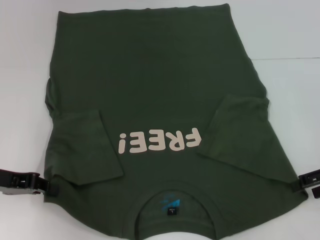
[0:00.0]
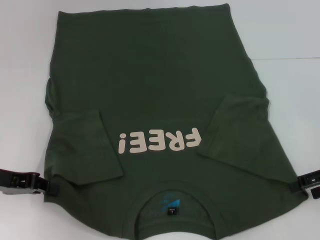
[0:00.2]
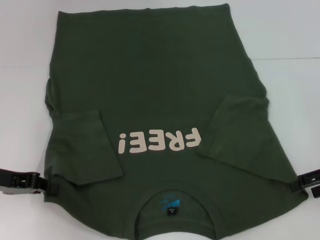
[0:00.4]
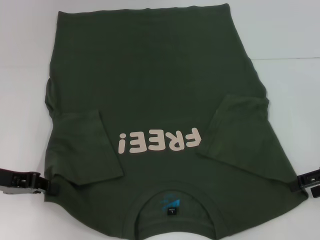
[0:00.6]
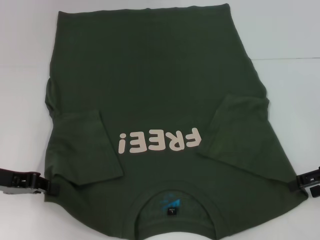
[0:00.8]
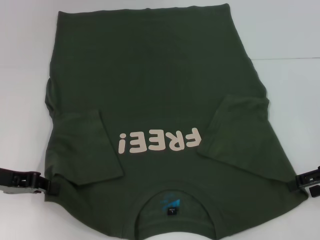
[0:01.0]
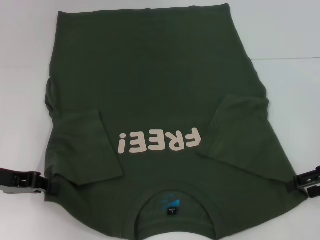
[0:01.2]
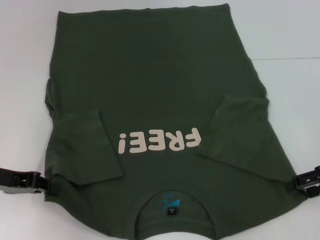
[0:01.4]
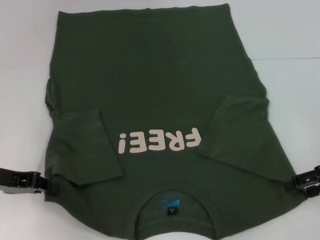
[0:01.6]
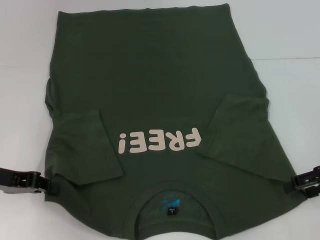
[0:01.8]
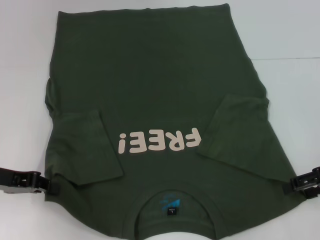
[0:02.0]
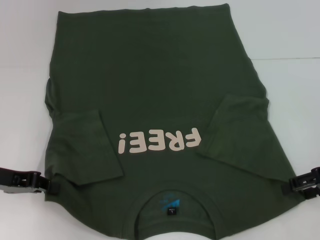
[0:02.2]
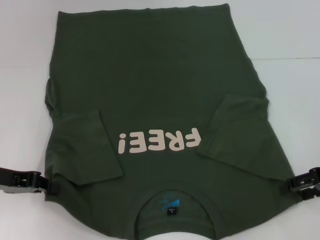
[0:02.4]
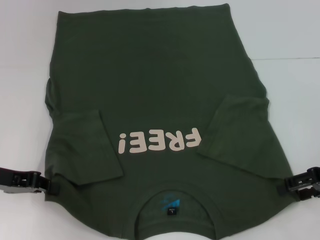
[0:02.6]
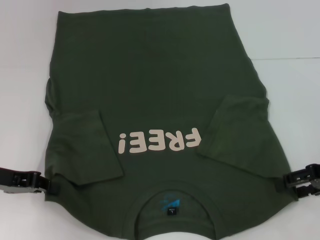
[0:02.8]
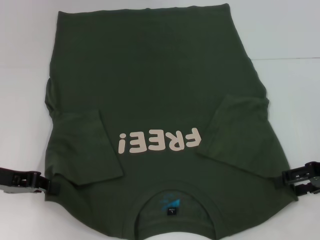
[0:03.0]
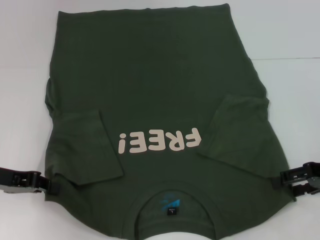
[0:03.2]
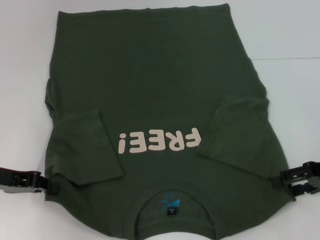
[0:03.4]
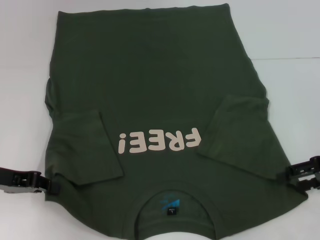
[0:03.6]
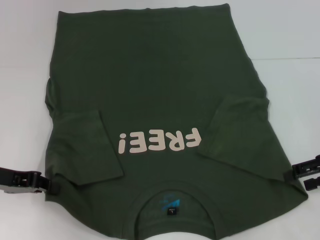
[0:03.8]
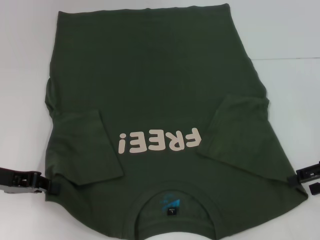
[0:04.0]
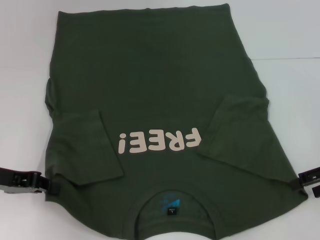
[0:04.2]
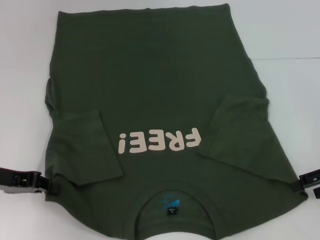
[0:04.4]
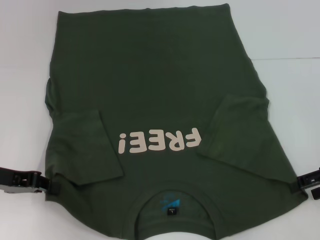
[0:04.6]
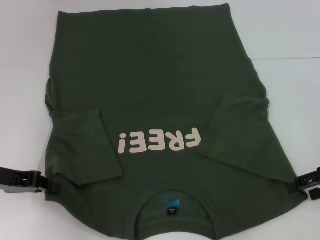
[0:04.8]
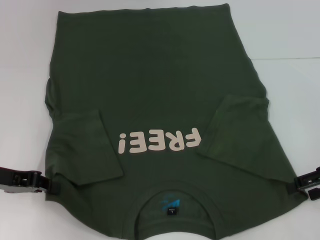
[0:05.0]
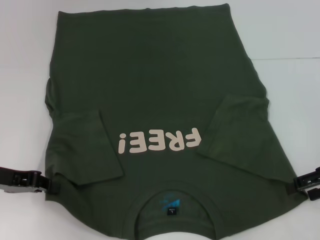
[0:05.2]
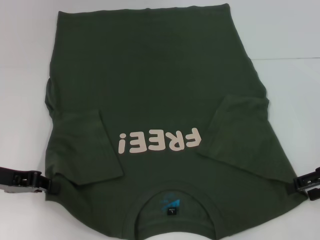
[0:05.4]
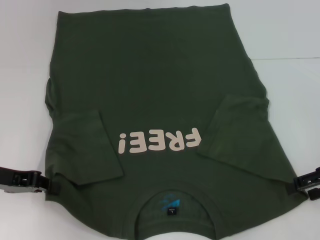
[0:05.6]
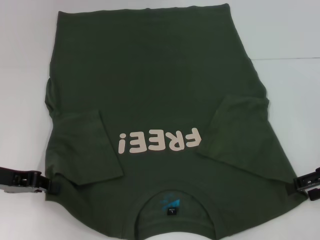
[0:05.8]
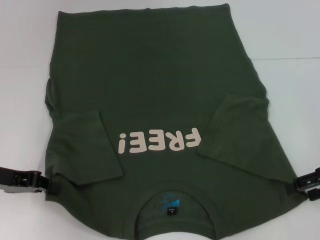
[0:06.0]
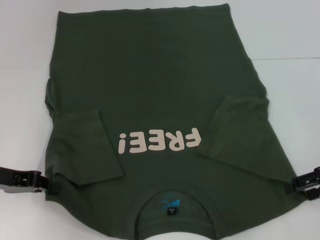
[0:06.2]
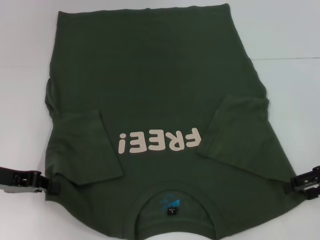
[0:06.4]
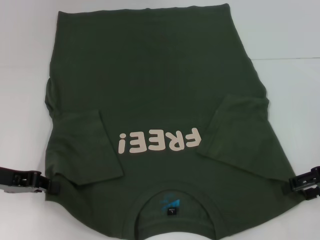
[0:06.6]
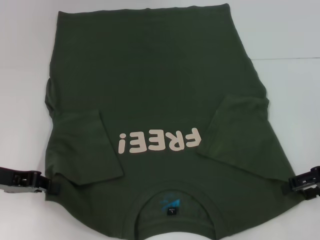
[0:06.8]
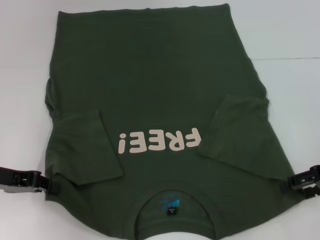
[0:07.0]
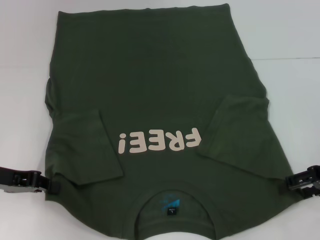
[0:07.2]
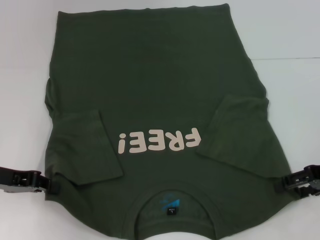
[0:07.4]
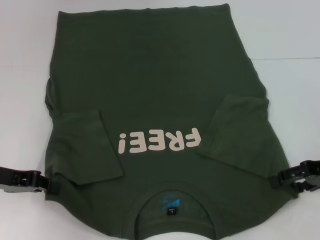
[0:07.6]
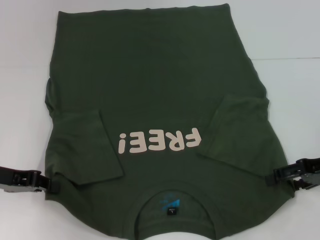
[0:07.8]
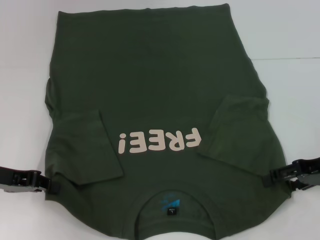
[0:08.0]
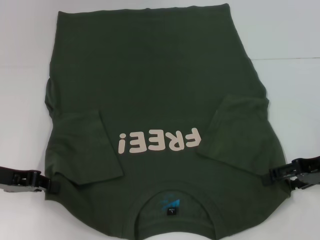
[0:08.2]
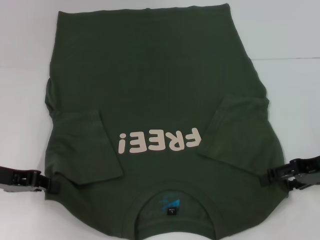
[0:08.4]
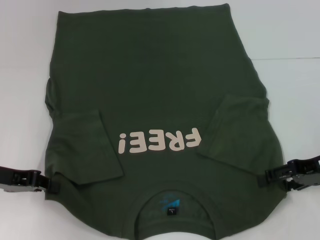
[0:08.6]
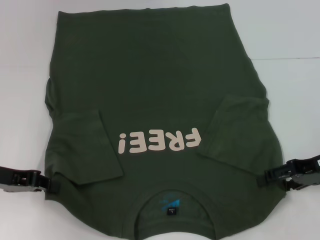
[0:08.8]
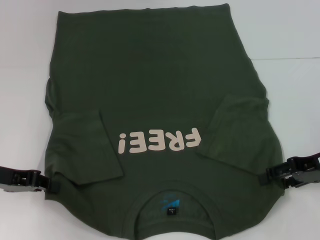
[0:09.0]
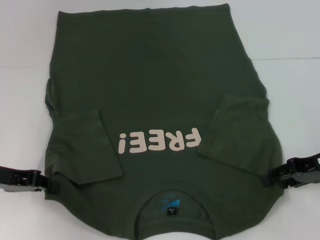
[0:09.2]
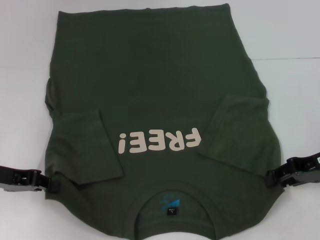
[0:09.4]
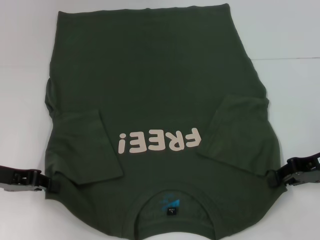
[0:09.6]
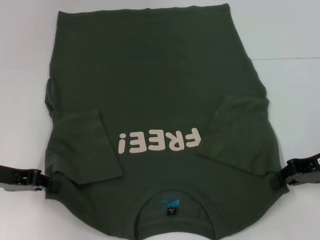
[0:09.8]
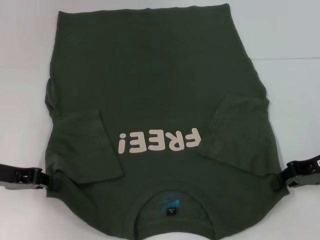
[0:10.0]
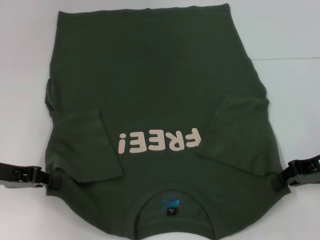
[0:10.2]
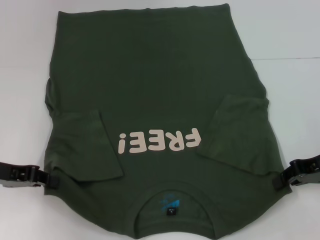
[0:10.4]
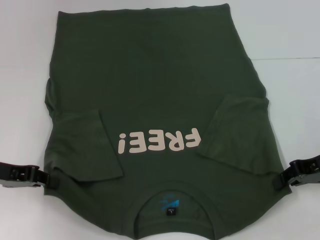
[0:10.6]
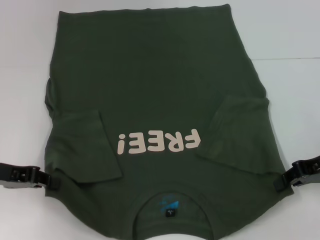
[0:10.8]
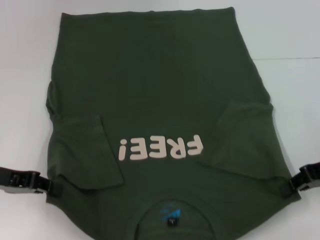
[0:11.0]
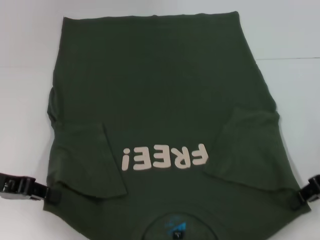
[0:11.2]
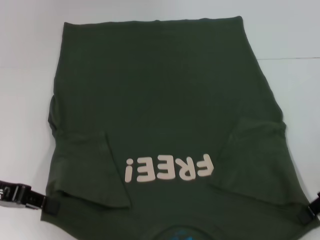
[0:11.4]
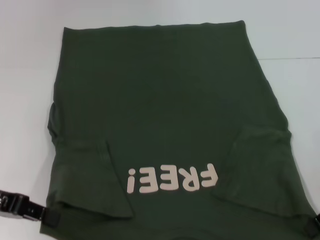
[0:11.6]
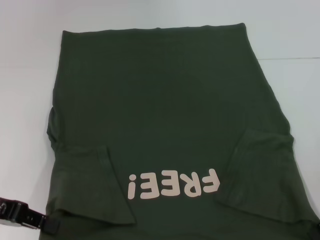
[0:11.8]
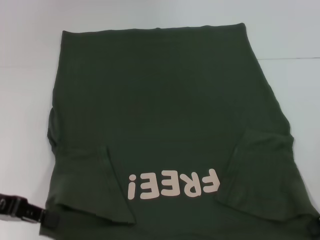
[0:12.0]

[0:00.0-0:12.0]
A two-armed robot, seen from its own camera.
Step, 0:00.0 to 0:09.6: Grab the bottom right corner with your right hand.
0:00.0 to 0:01.6: Neither gripper changes place.
0:01.6 to 0:04.4: The grippers make only small movements.
0:04.4 to 0:06.0: Neither gripper changes place.
0:06.0 to 0:09.0: The grippers move only a little.
0:09.0 to 0:10.4: The right gripper closes.
0:10.4 to 0:12.0: The right gripper ends up roughly 5 cm from where it was.

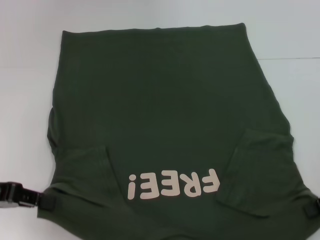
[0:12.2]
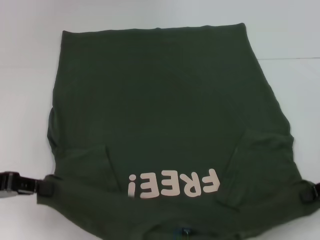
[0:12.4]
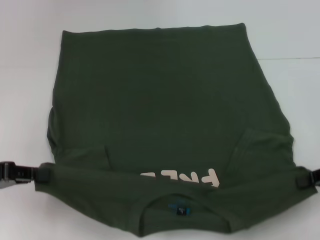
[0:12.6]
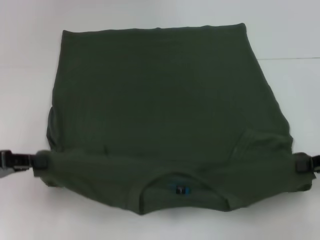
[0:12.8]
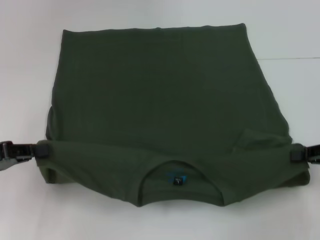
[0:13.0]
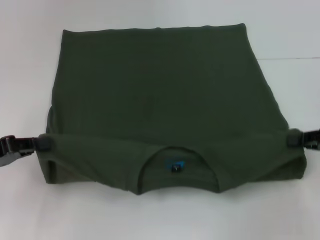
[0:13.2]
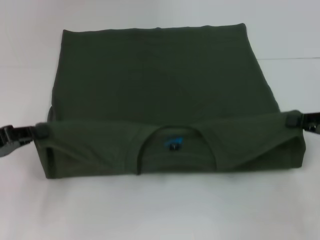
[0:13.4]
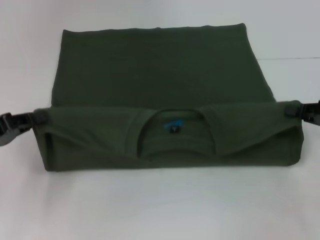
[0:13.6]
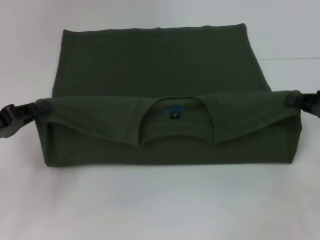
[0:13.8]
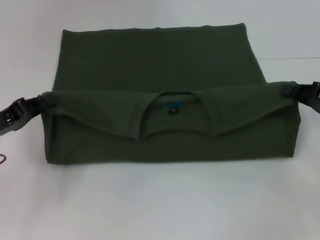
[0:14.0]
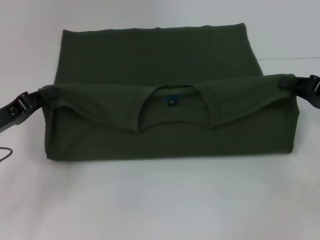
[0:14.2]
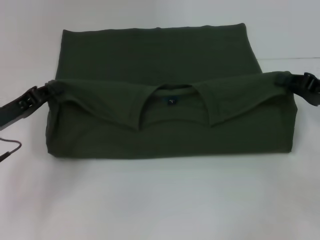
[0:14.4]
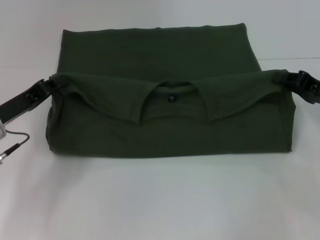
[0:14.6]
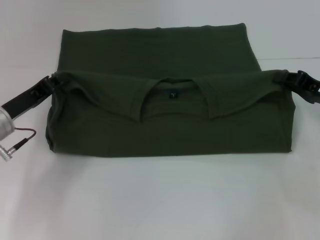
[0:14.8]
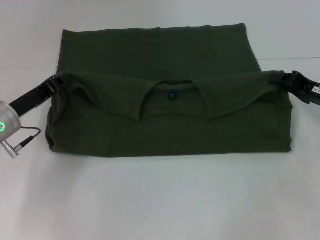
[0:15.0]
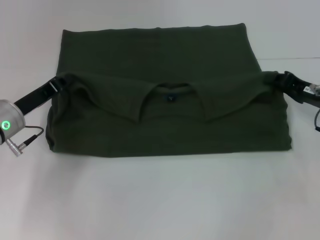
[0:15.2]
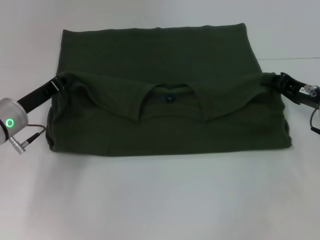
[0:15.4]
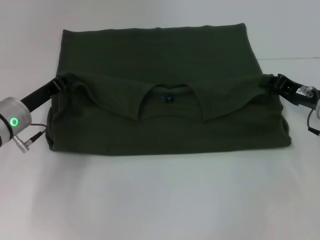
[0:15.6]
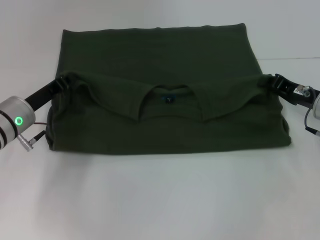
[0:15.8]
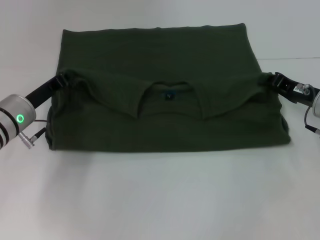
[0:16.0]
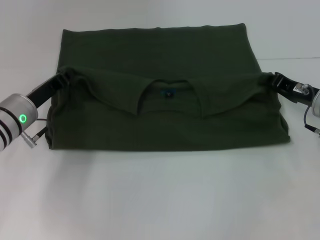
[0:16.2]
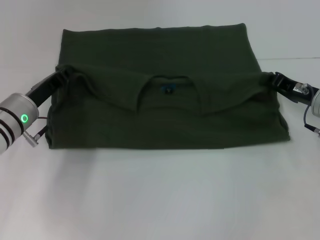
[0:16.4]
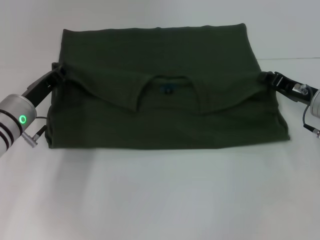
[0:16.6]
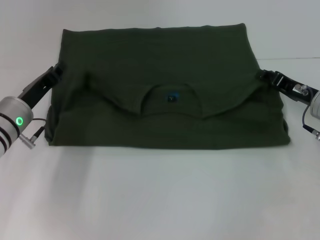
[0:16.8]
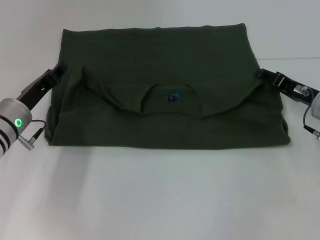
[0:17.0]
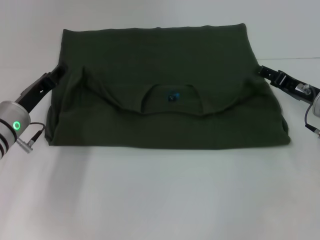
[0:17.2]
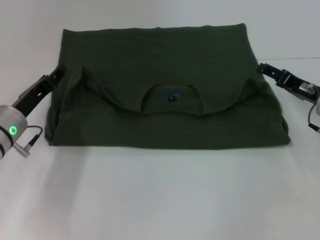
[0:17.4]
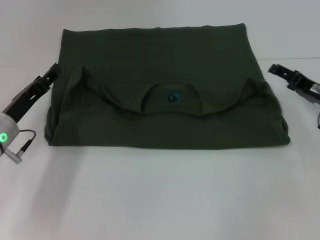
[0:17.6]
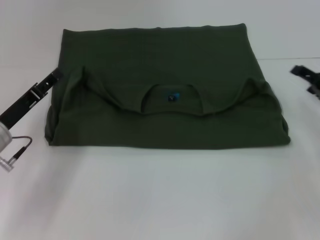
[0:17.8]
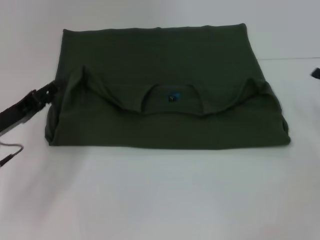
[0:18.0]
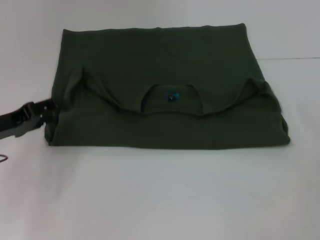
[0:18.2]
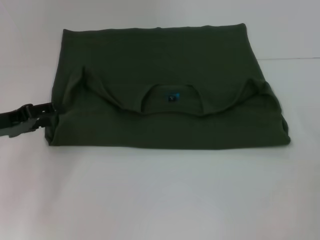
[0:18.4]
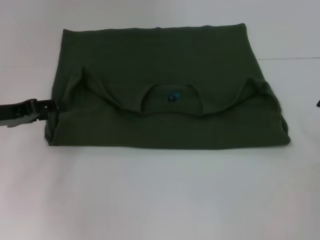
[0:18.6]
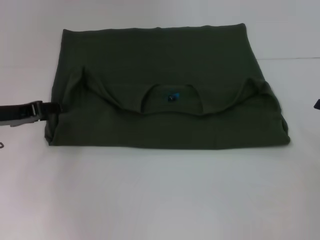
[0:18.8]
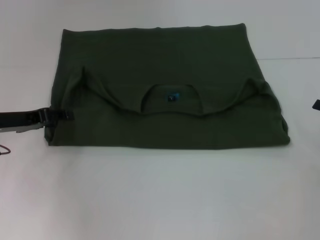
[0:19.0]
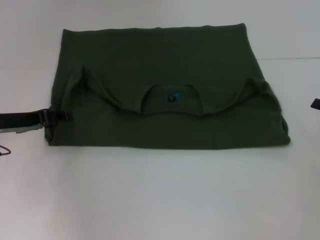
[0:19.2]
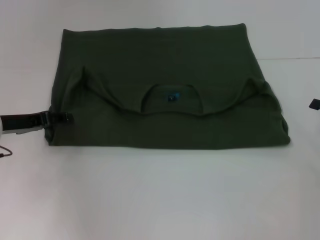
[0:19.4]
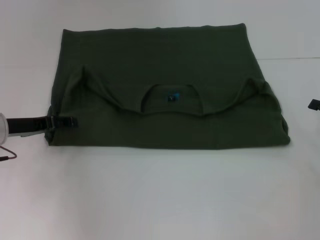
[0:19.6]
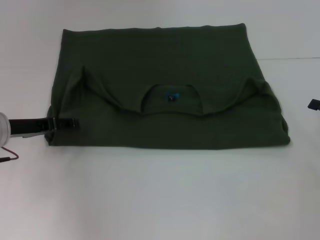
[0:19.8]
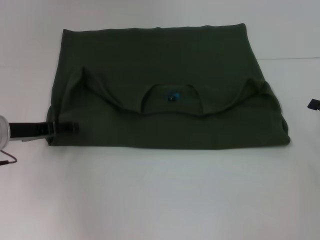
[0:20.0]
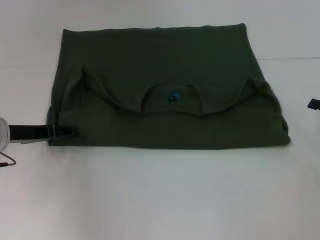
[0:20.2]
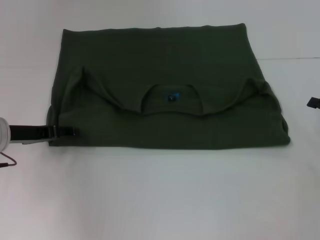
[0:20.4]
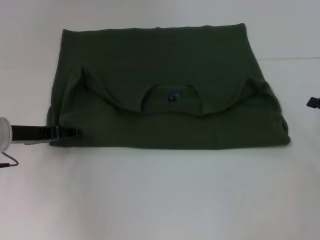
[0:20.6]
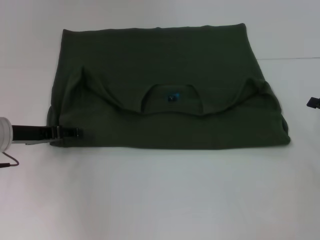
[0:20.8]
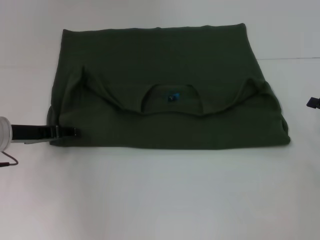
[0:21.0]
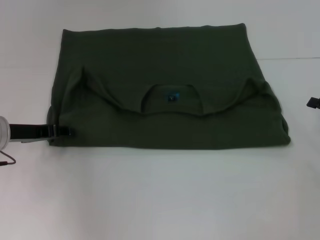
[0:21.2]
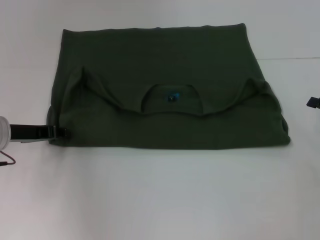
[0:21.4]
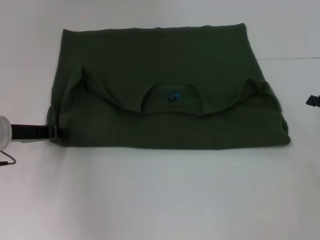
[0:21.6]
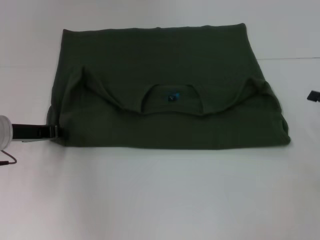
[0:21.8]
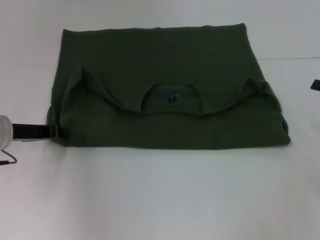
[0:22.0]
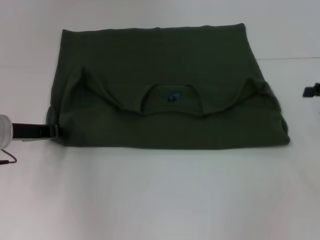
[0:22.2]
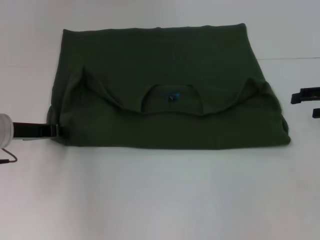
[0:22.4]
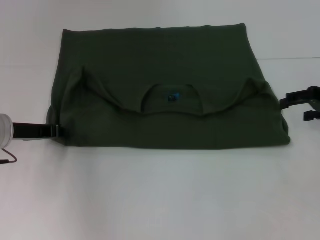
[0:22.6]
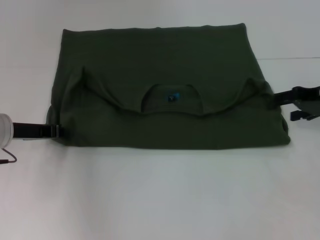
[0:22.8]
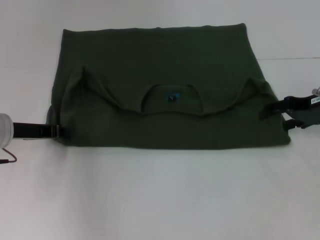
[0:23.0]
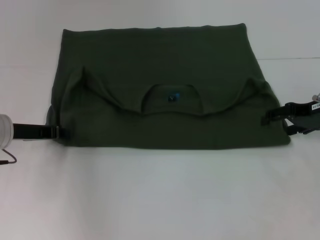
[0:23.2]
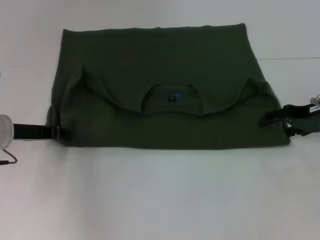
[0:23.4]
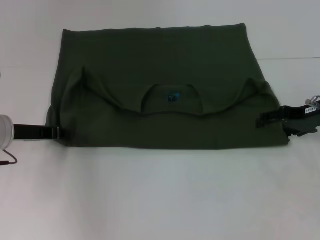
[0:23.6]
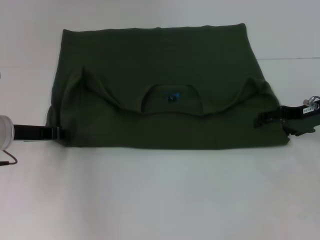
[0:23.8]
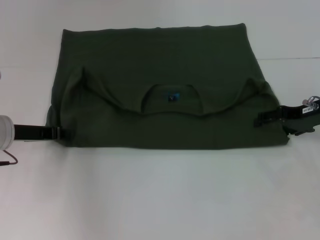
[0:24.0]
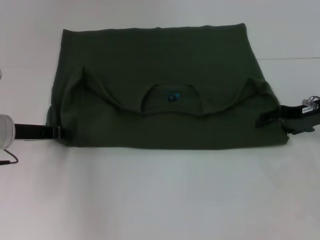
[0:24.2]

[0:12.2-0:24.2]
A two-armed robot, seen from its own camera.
Step, 0:12.2 to 0:17.2: Fold the clothes with your left hand.
Step, 0:12.2 to 0:17.2: Fold the clothes with your right hand.
0:13.8 to 0:15.2: The right gripper goes about 5 cm to the left, while the left gripper goes approximately 10 cm to the right and forward.
0:15.2 to 0:16.6: The grippers stay close to where they were, moving slightly.
0:16.6 to 0:18.2: The right gripper heads to the right and backward, covering about 15 cm, and opens its fingers. The left gripper moves to the left and backward, some 10 cm, and opens up.
0:19.8 to 0:21.2: The grippers make only small movements.
0:21.2 to 0:22.6: The right gripper heads upward and forward, covering approximately 10 cm. The left gripper closes its fingers.
0:22.6 to 0:24.2: The right gripper shifts by about 5 cm.
